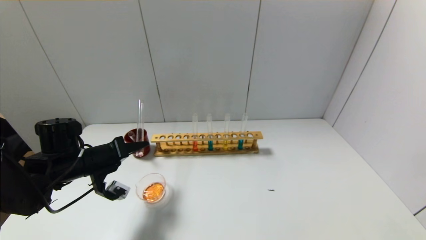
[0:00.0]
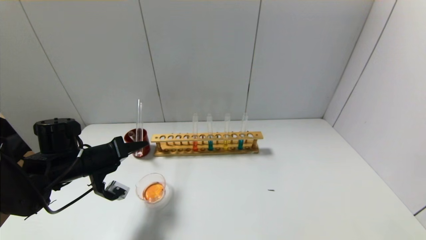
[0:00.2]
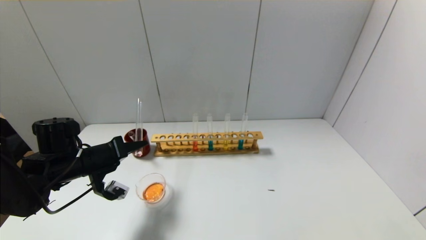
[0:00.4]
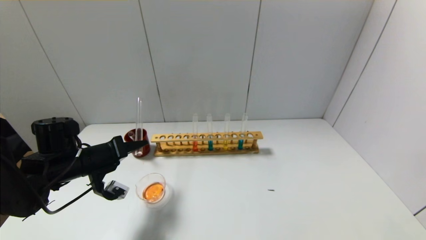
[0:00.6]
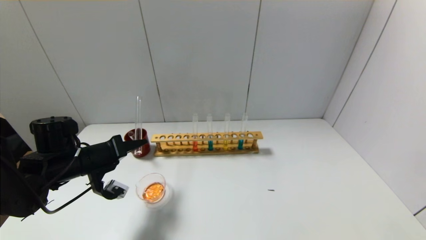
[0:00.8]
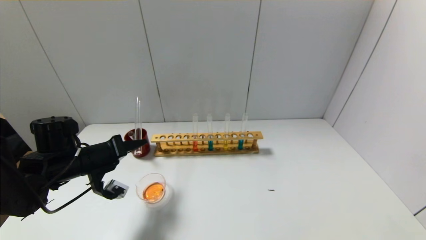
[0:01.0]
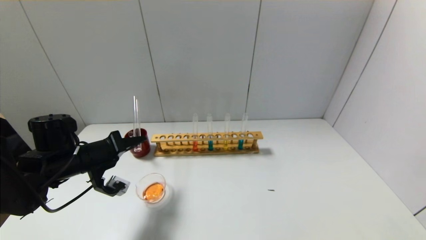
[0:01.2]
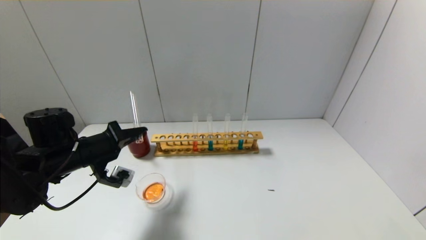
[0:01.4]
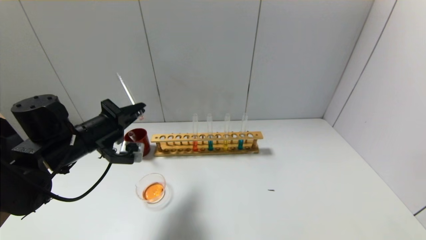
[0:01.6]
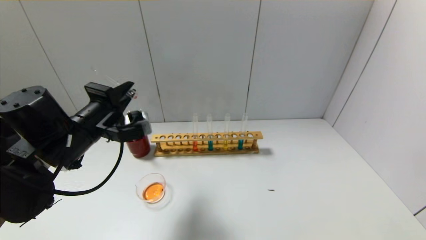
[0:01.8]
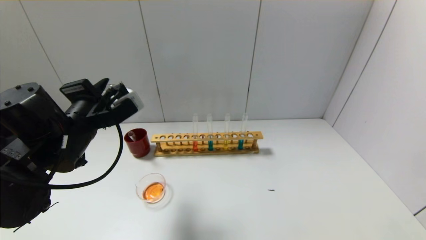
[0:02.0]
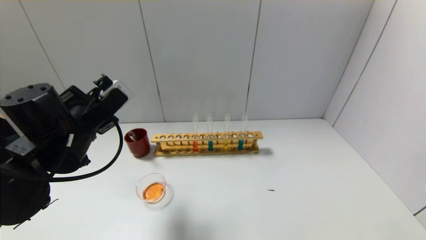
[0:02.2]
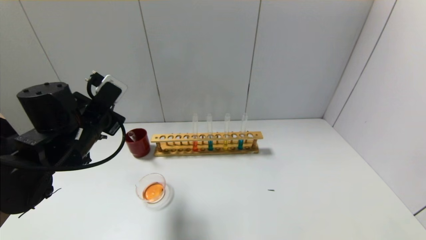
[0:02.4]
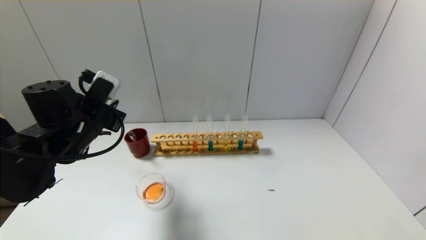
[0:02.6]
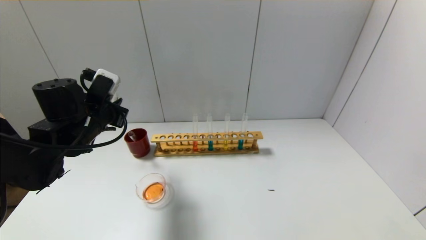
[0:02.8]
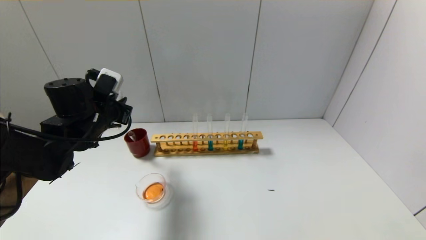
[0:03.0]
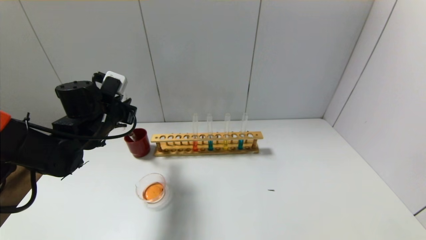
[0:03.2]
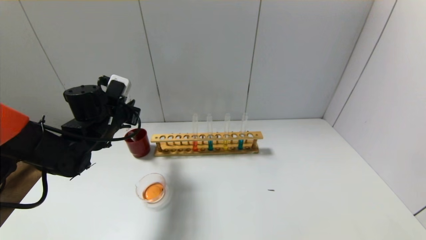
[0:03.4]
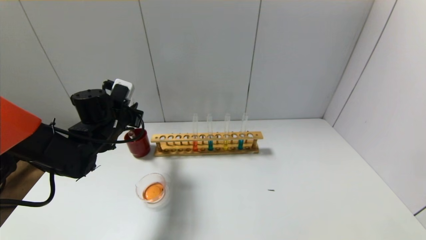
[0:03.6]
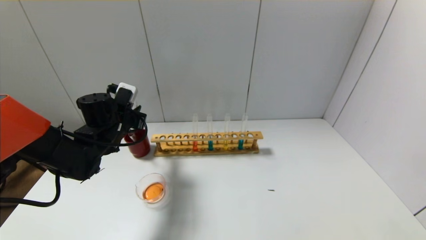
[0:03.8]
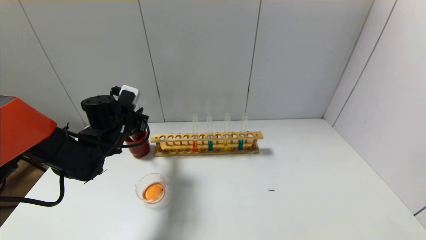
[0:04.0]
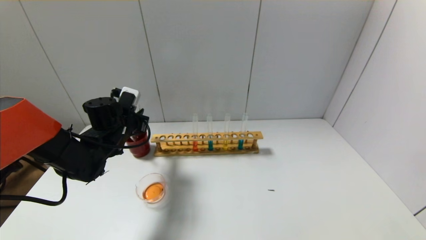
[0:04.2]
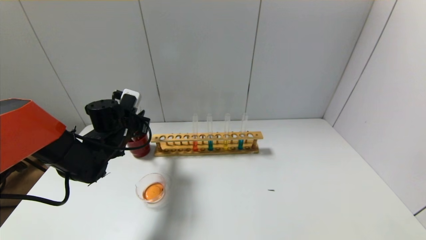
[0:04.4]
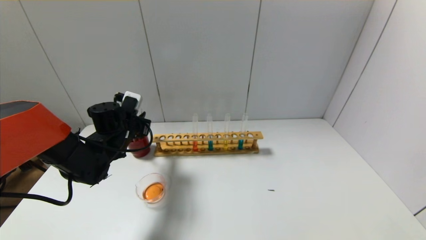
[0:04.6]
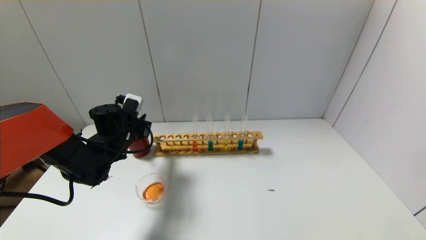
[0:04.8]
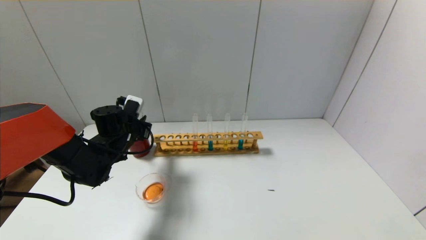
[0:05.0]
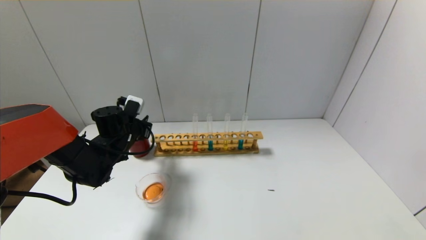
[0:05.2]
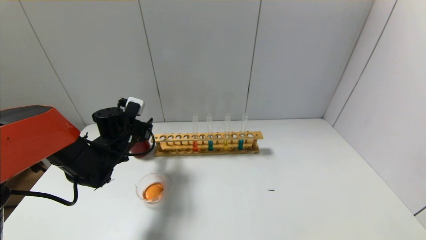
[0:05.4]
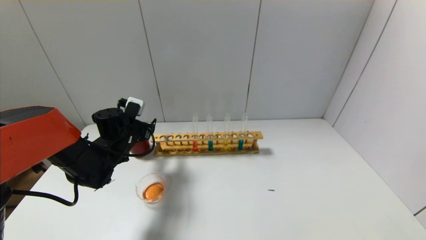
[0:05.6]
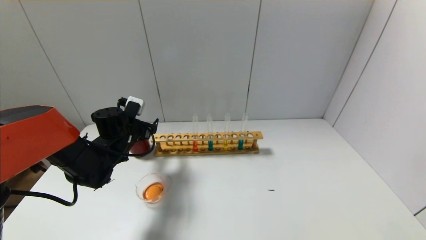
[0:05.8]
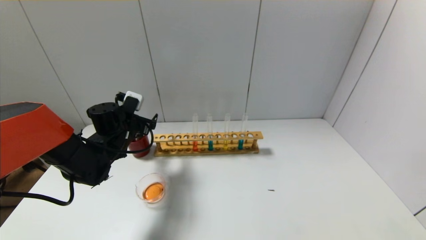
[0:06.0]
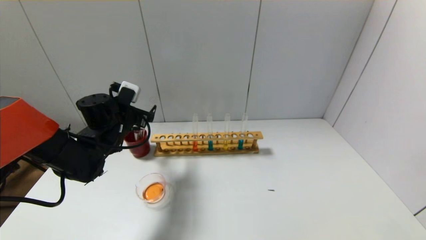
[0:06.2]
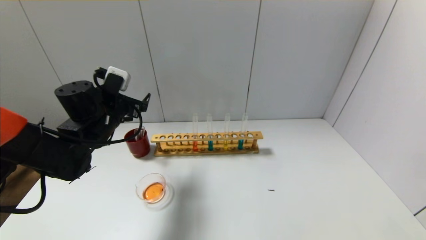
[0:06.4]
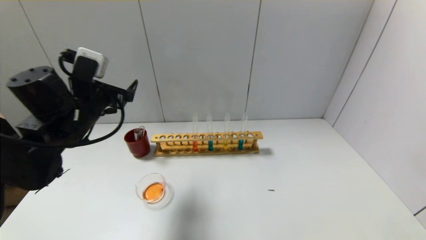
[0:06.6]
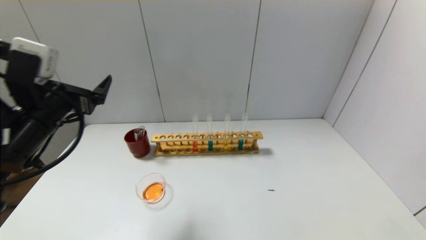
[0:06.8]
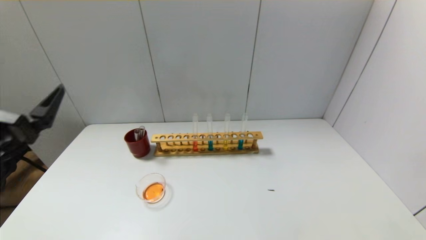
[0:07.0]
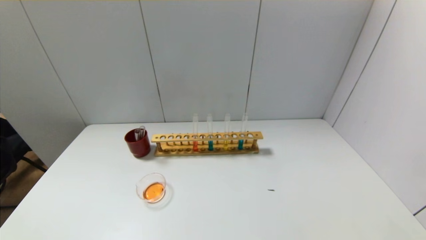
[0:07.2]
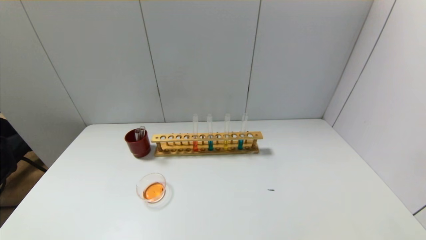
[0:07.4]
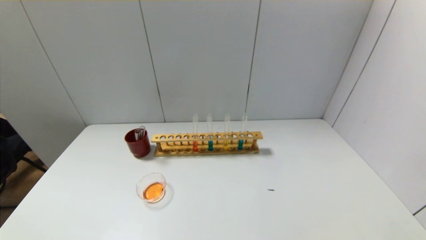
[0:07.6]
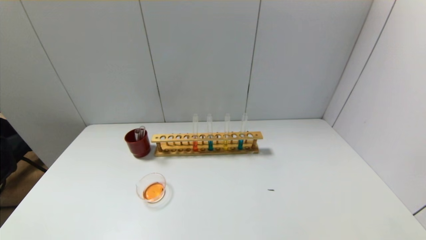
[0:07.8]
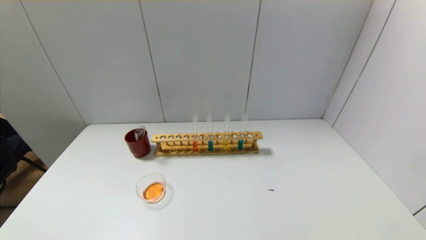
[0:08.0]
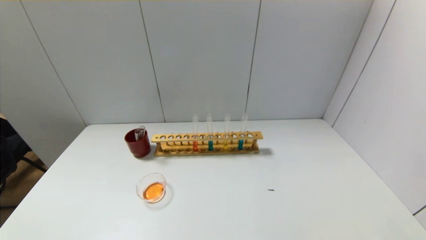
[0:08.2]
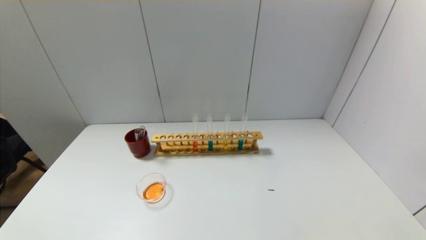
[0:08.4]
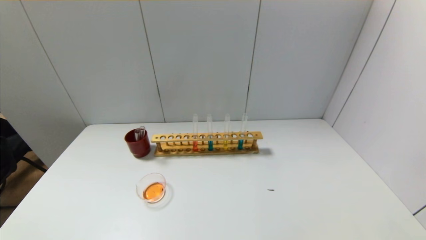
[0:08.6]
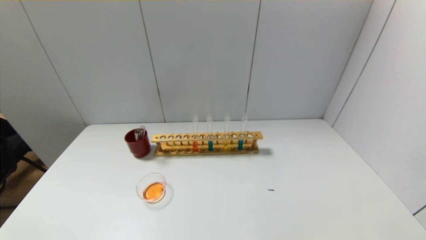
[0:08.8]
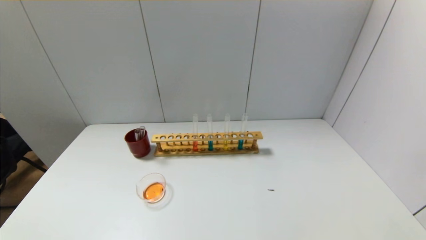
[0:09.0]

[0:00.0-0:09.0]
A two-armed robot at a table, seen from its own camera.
Step, 1.6 to 5.2 s: Place the test tube into the brown cup with the left gripper.
0.0 to 1.6 s: The left gripper shifts some 5 cm upward.
3.0 to 4.4 s: The left gripper travels downward by about 5 cm.
4.4 to 6.0 s: The left gripper opens its fingers.
6.0 to 7.6 s: The left gripper is displaced backward by approximately 40 cm.

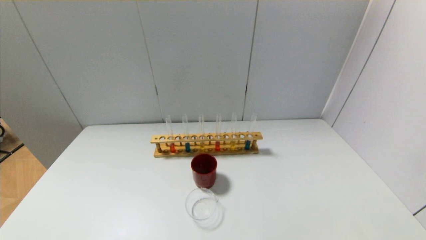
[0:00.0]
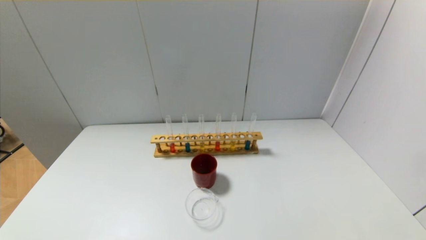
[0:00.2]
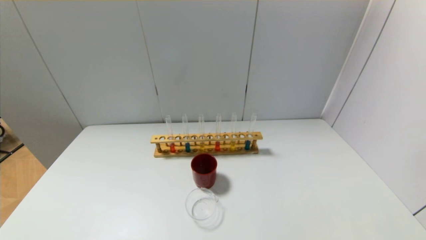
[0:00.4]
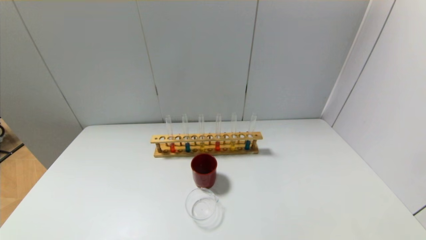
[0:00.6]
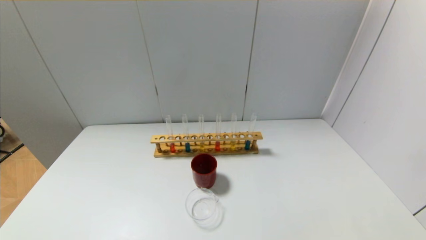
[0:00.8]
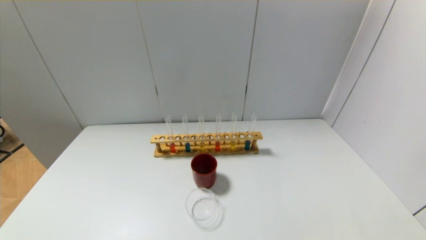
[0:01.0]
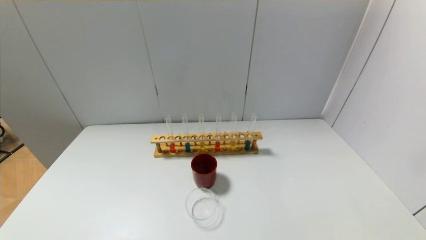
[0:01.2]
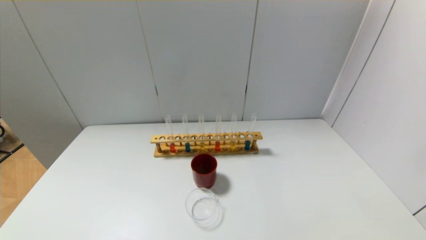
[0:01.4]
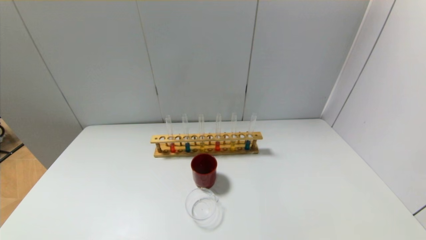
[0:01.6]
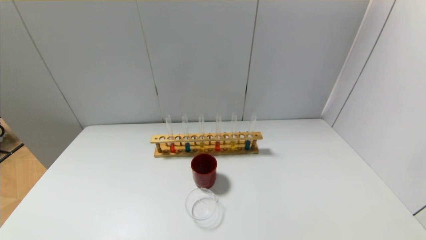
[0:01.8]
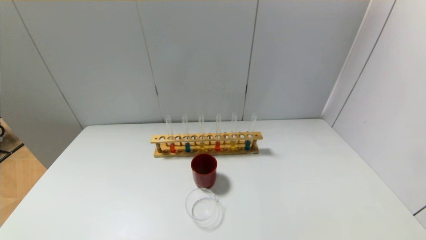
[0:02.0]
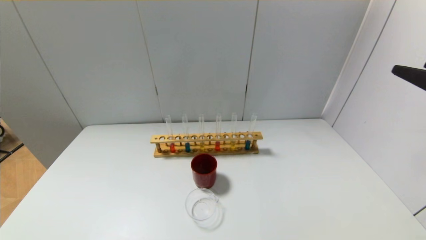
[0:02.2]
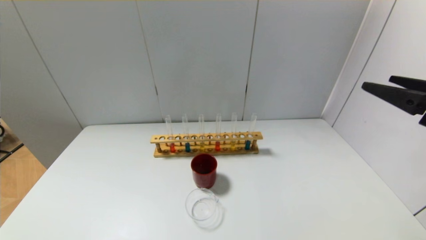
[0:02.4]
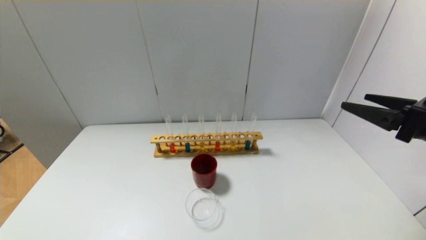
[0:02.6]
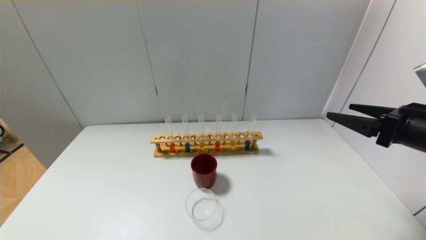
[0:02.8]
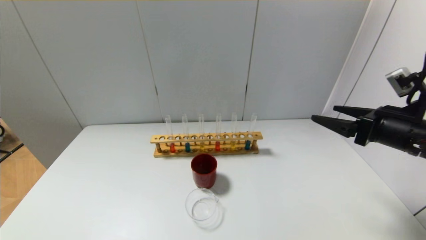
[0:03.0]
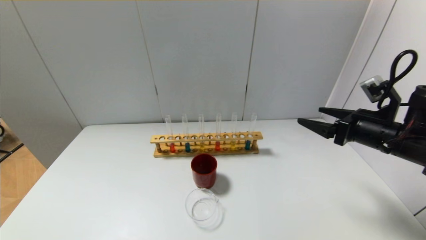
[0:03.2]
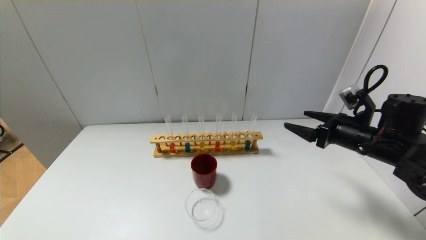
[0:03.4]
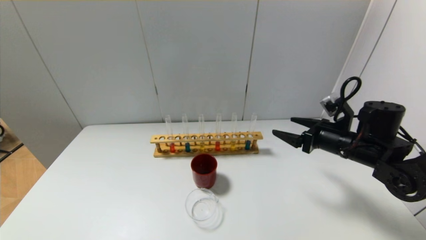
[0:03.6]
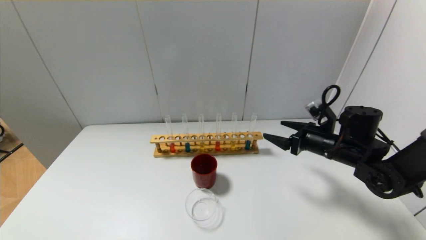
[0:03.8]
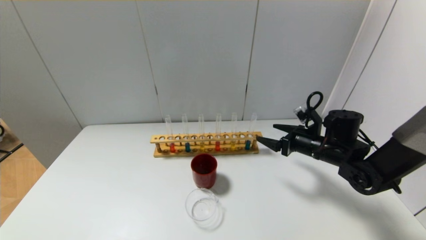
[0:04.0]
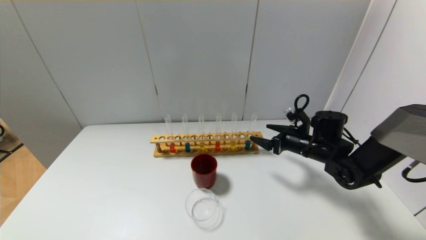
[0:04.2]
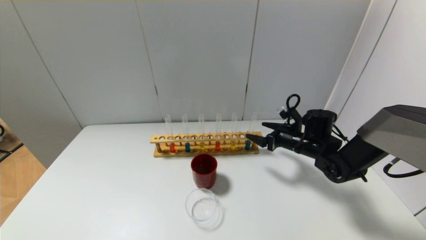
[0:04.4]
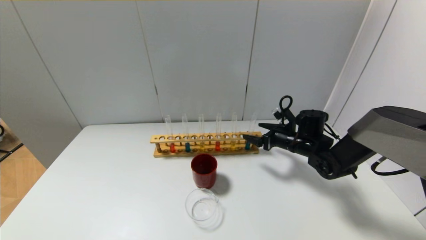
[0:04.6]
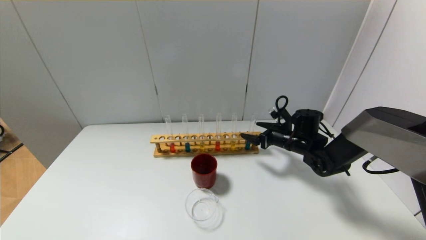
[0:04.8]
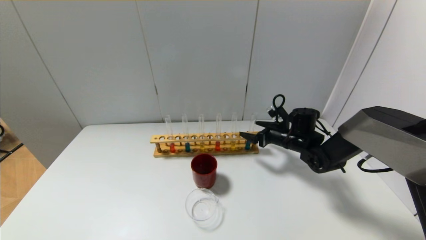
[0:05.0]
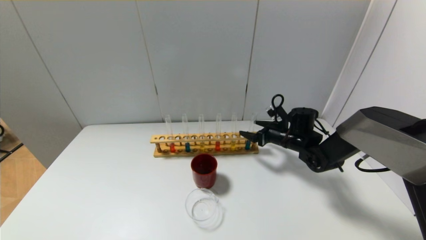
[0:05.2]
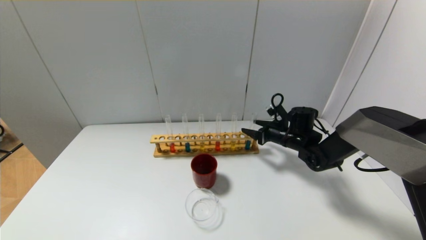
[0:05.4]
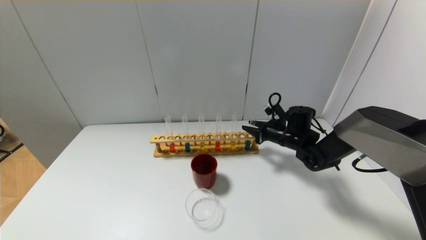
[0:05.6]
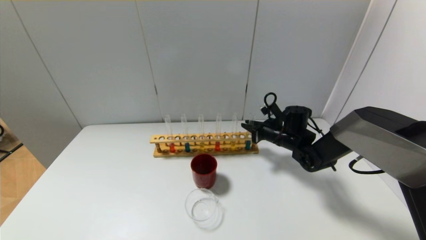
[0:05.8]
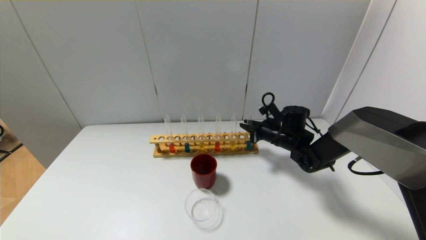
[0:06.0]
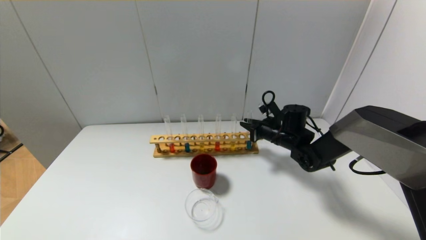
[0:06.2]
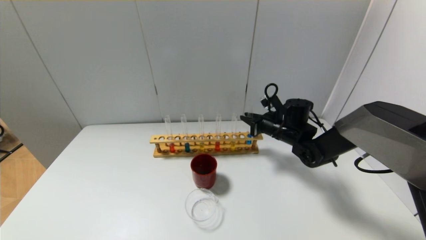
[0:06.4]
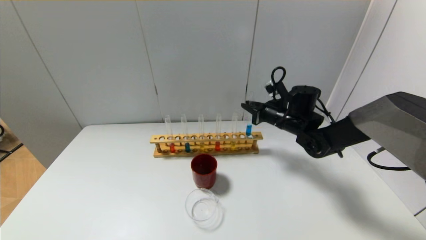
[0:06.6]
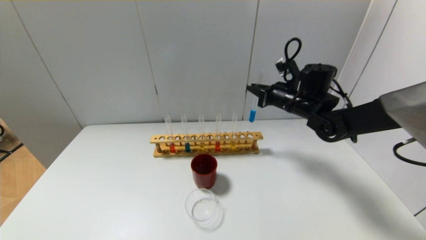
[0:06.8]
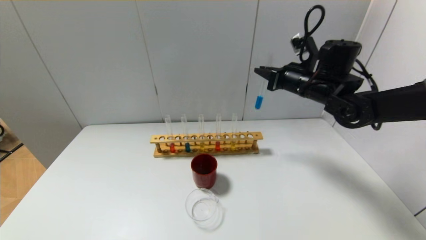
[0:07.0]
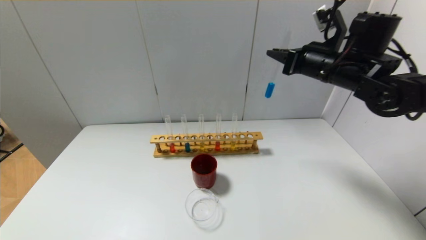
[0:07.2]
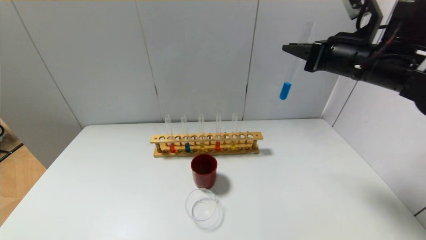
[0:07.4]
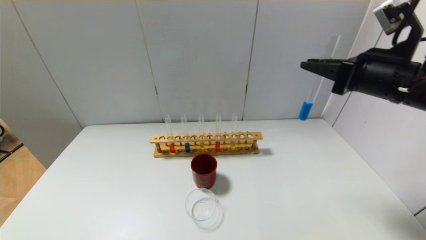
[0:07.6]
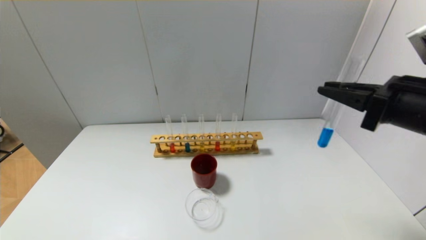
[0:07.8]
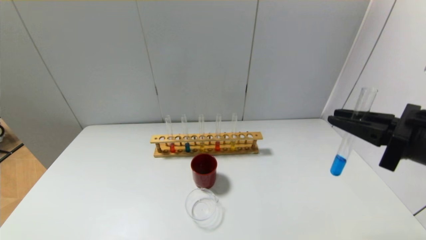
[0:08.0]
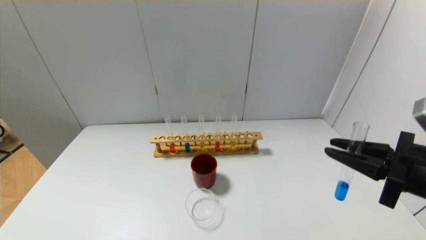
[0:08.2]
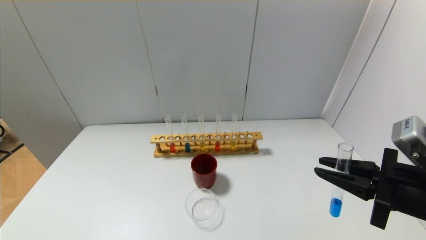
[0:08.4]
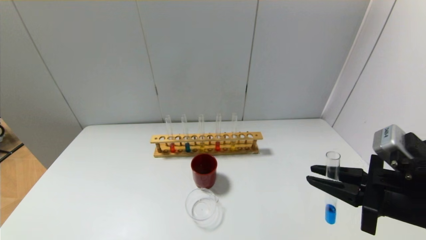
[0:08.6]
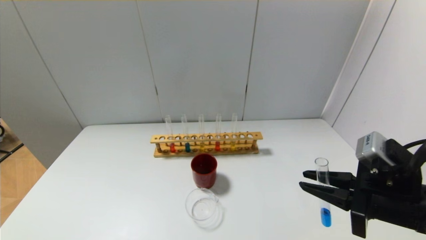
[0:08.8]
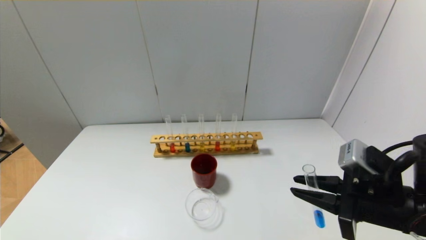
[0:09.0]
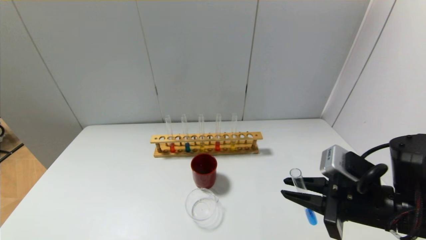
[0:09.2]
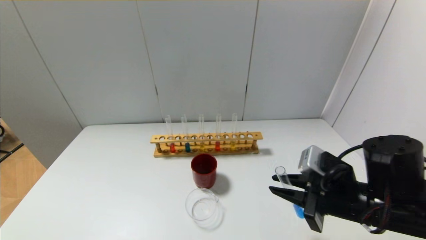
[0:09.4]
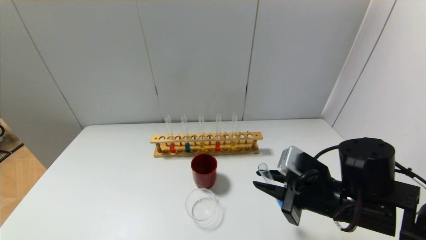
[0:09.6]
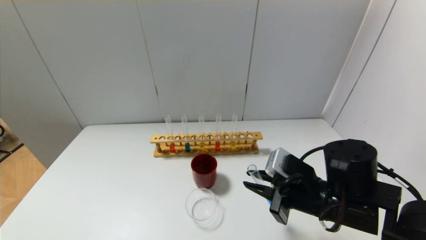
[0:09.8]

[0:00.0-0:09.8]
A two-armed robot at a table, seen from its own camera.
Step, 0.0 to 5.8 s: Grasp the blue reagent with the right gripper.
1.4 to 2.8 s: The right gripper shifts approximately 25 cm forward.
2.8 to 4.2 s: The right gripper is displaced forward, downward and to the left by some 25 cm.
4.2 to 5.6 s: The right gripper travels forward by about 5 cm, and closes up.
5.6 to 7.0 s: The right gripper moves upward, approximately 20 cm.
7.0 to 8.4 s: The right gripper shifts approximately 25 cm backward.
8.4 to 9.8 s: The right gripper heads to the left, downward and forward, covering approximately 15 cm.
